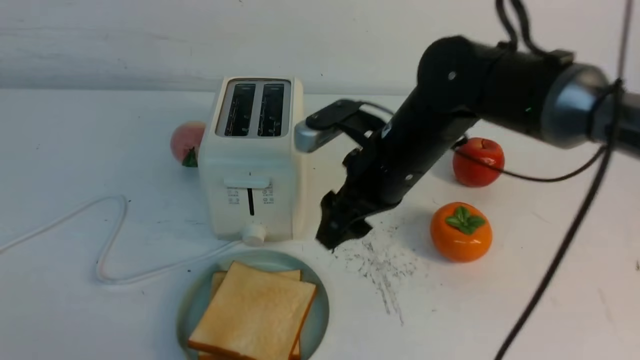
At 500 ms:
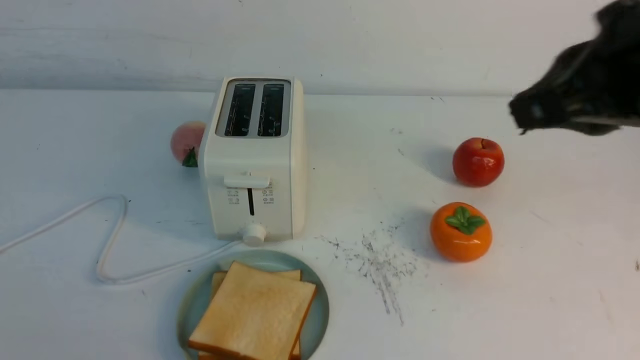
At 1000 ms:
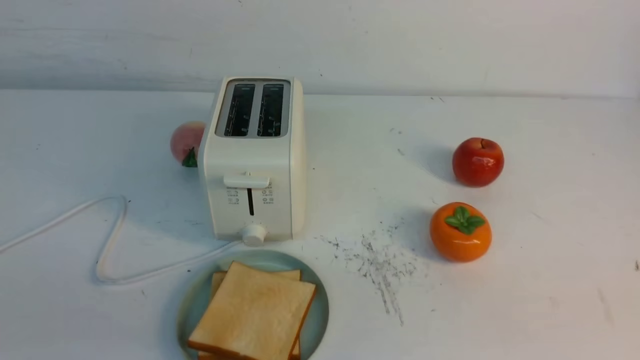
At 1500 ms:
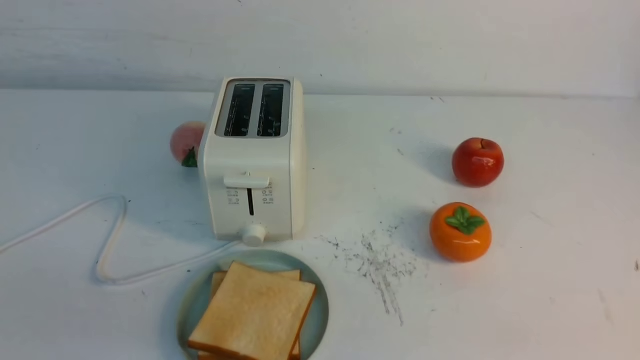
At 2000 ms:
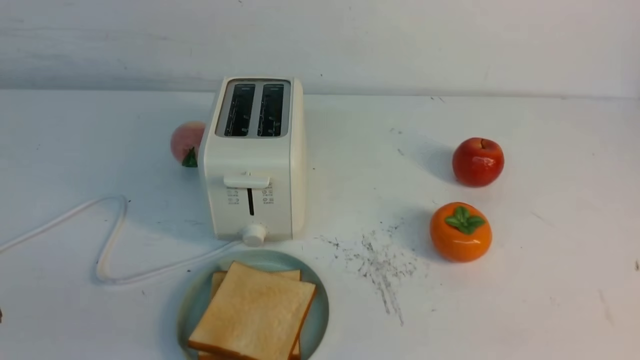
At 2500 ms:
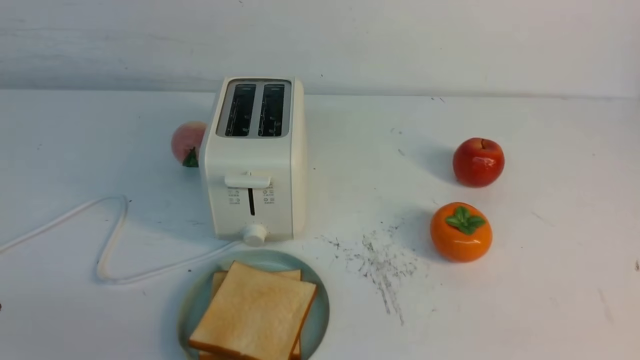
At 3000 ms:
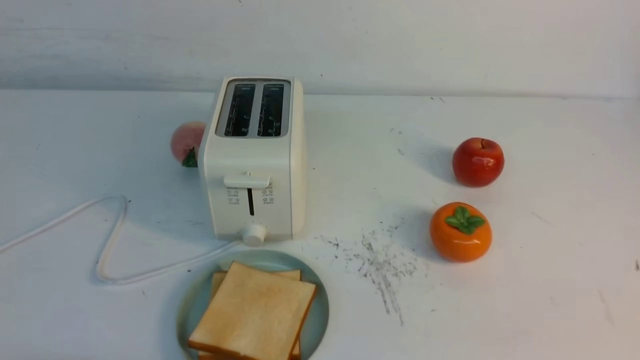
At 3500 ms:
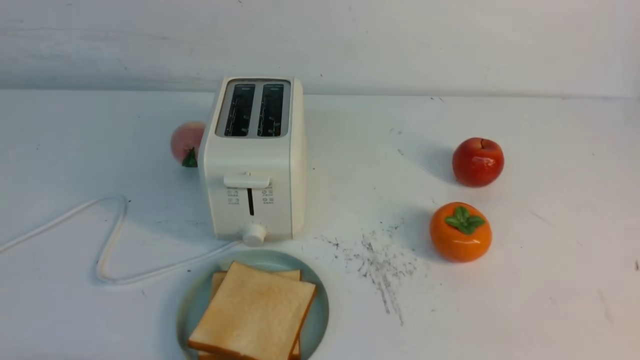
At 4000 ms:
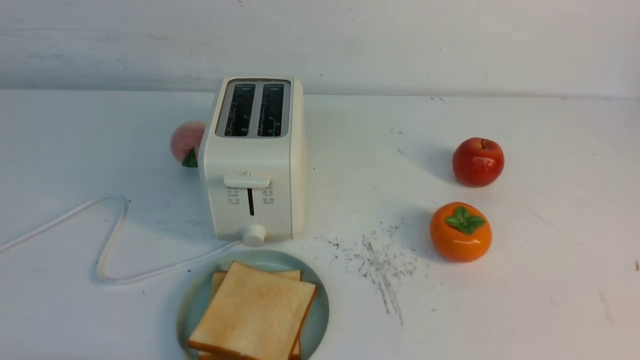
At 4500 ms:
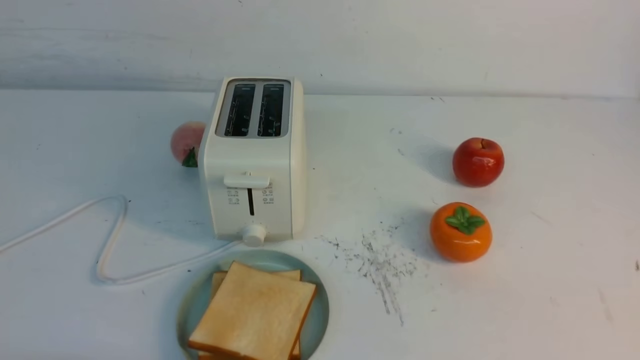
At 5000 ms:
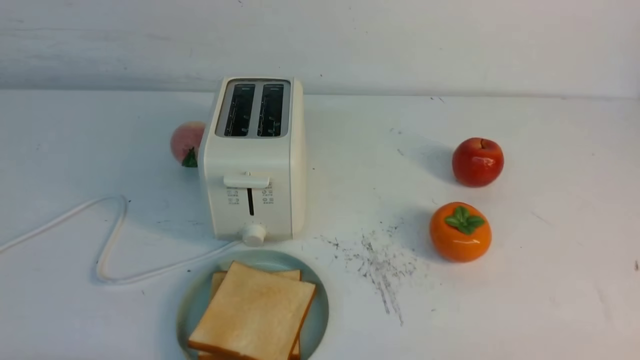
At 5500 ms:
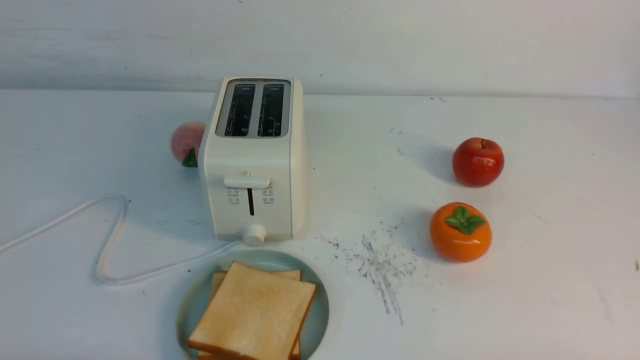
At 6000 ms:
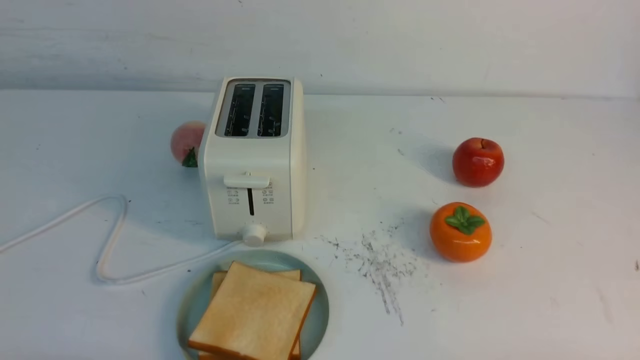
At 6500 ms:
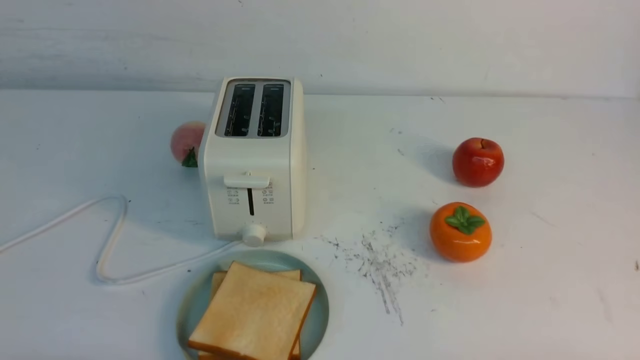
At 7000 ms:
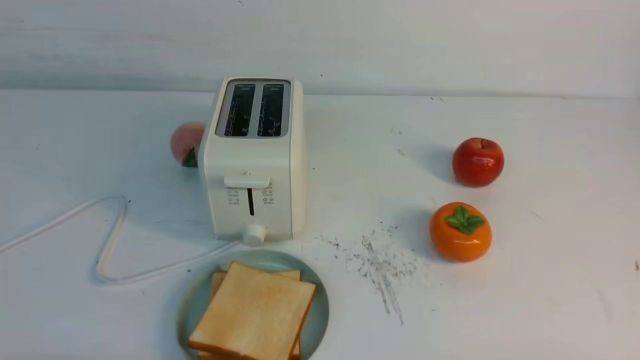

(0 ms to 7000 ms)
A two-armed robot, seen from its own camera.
Task of the whole recording: take toasted bread from bread machine on white table place on plate.
0 ms - 2000 ms: The right gripper travels backward and to the right by about 40 cm, and closes.

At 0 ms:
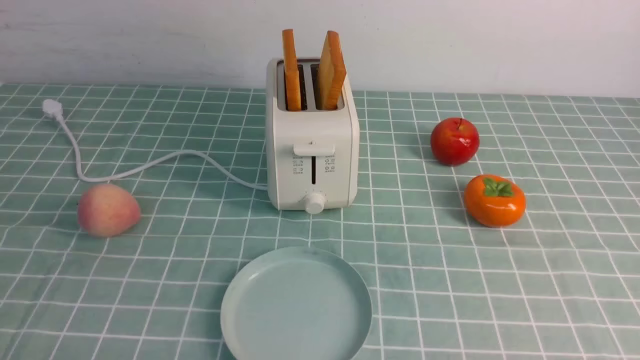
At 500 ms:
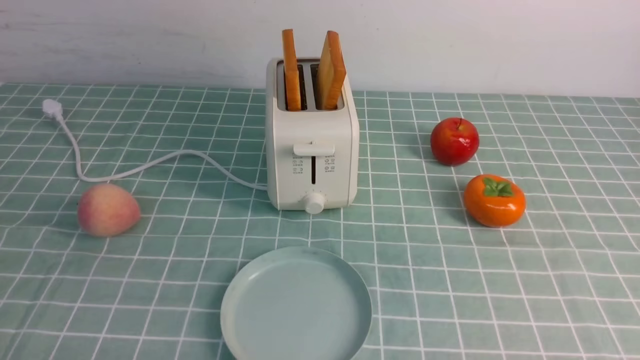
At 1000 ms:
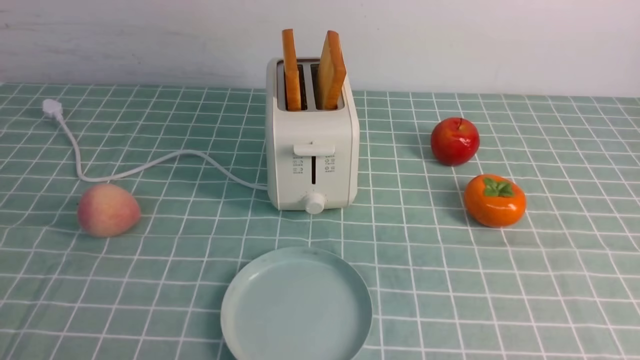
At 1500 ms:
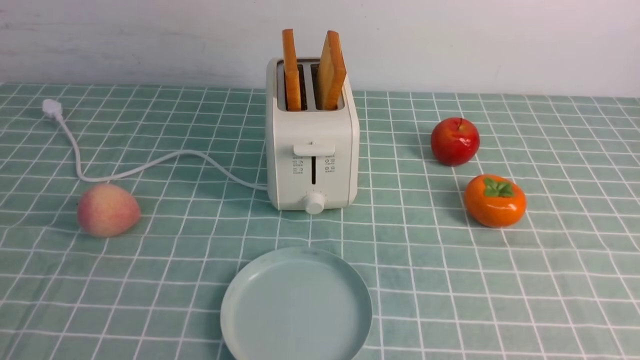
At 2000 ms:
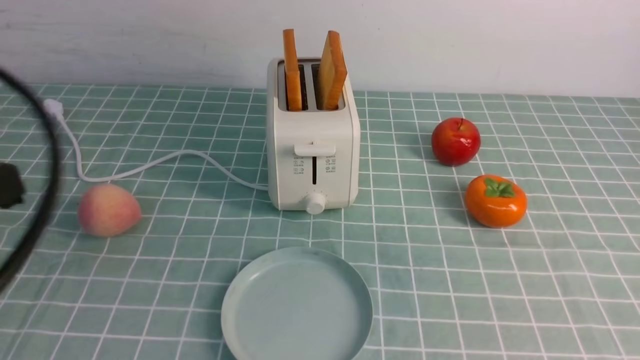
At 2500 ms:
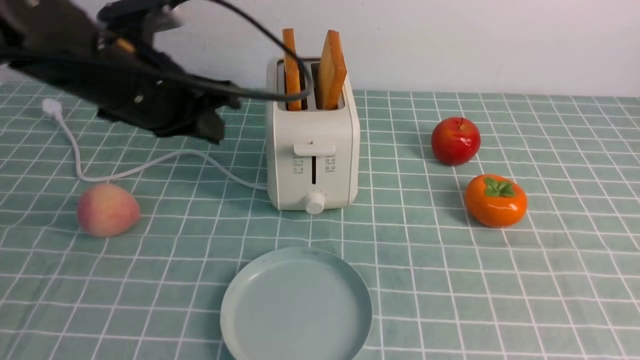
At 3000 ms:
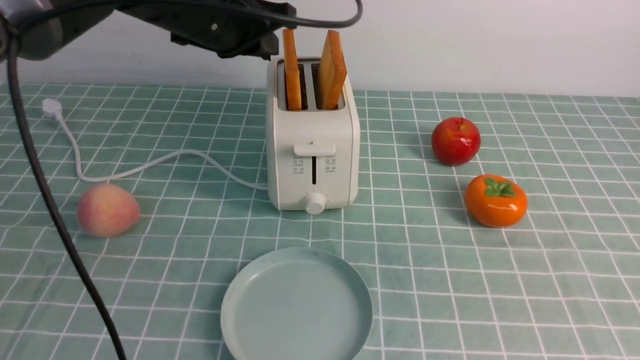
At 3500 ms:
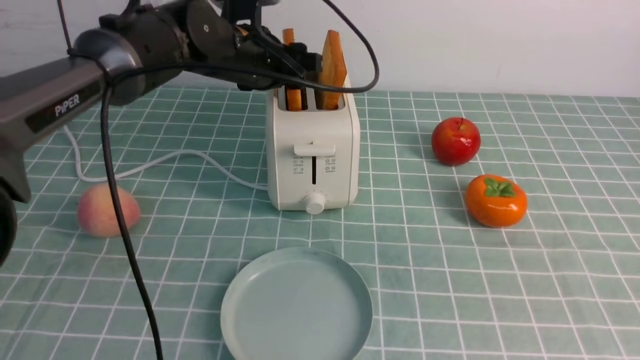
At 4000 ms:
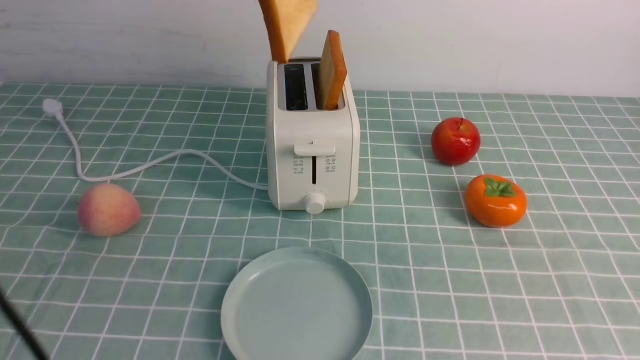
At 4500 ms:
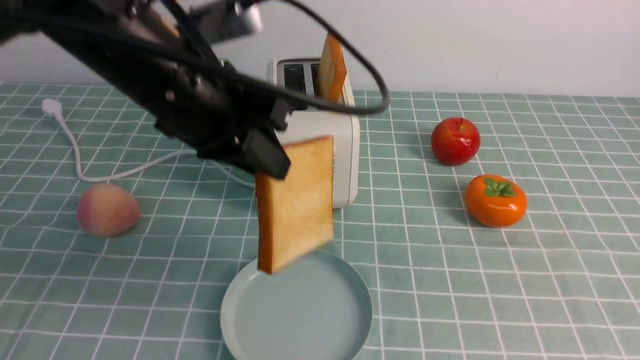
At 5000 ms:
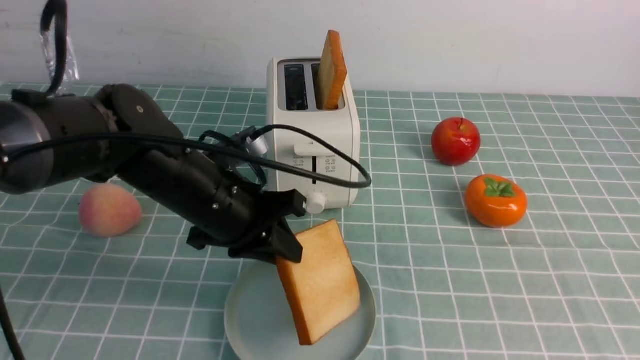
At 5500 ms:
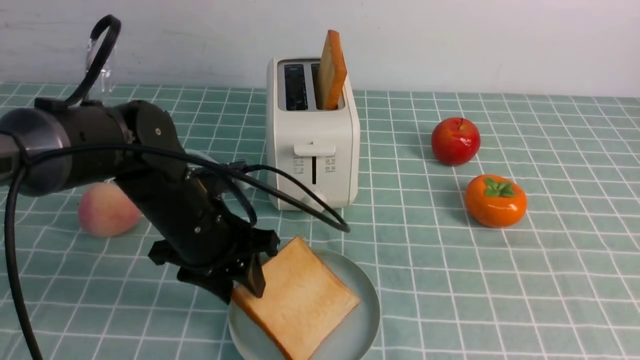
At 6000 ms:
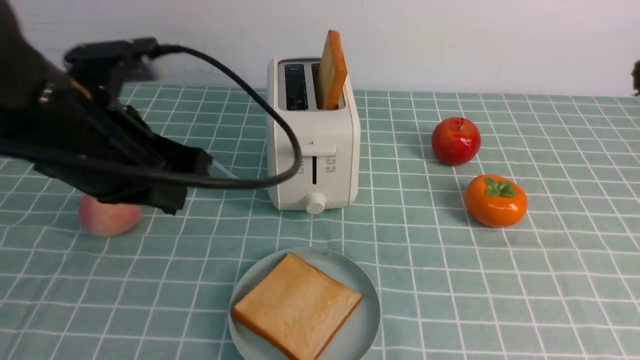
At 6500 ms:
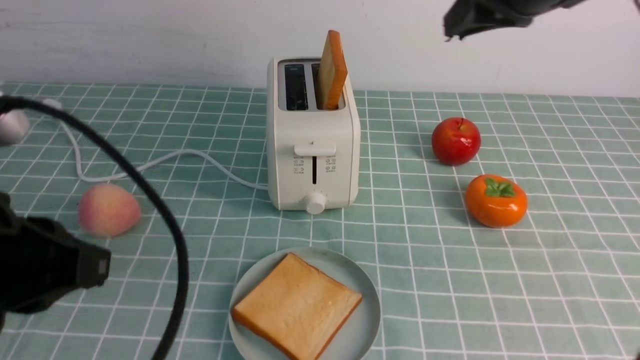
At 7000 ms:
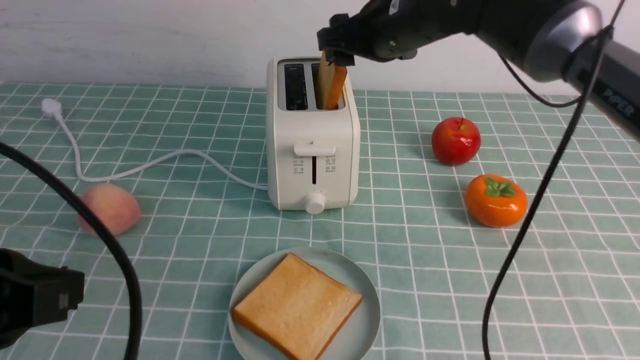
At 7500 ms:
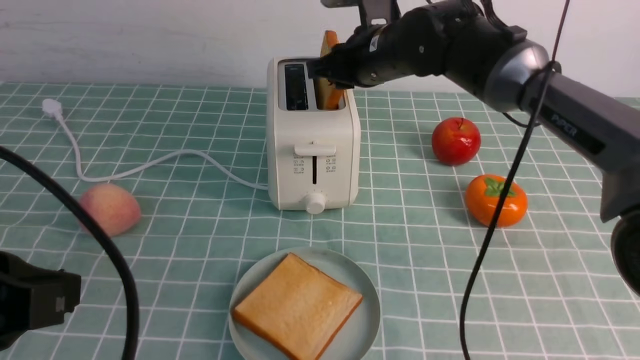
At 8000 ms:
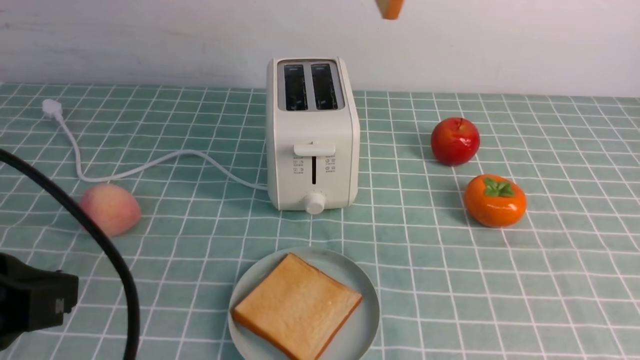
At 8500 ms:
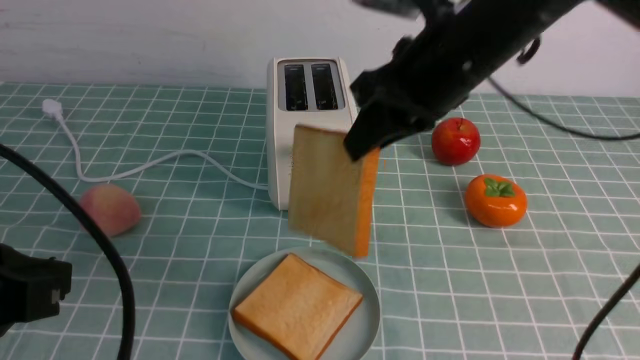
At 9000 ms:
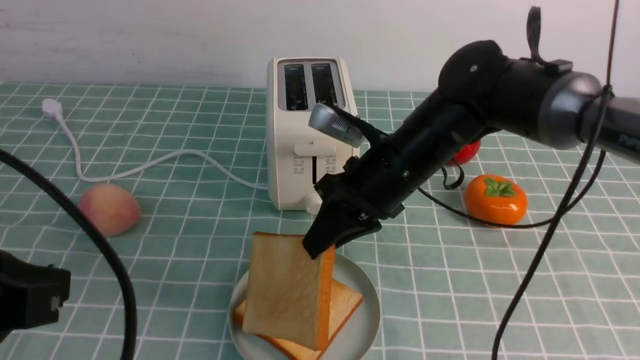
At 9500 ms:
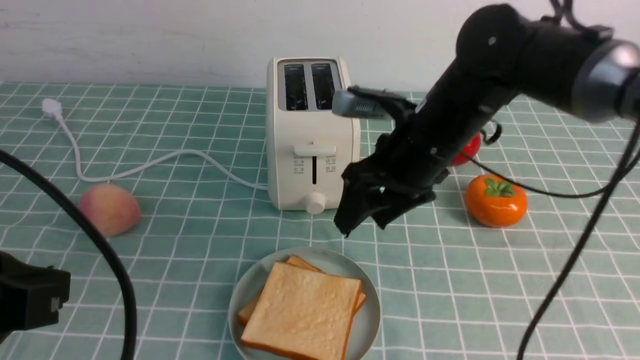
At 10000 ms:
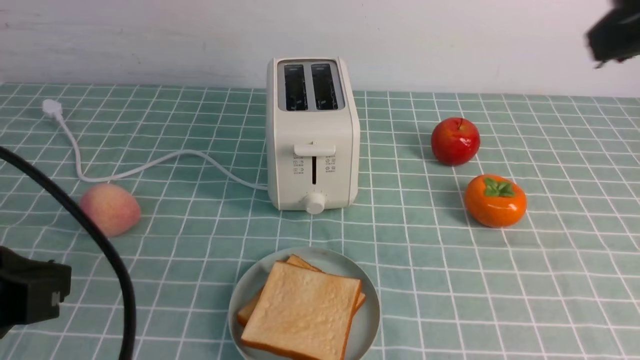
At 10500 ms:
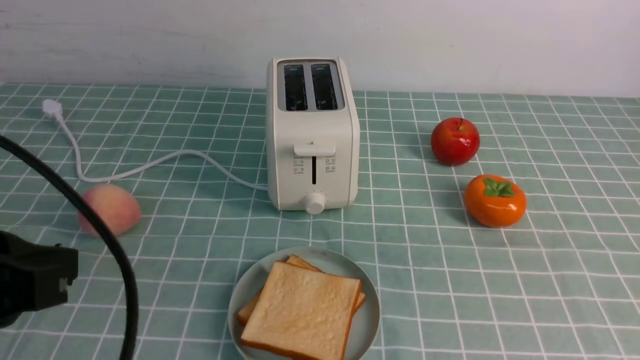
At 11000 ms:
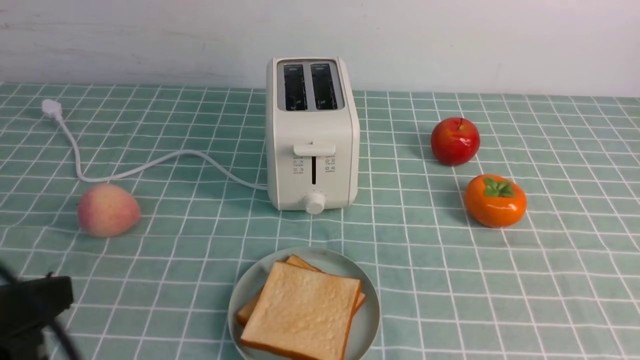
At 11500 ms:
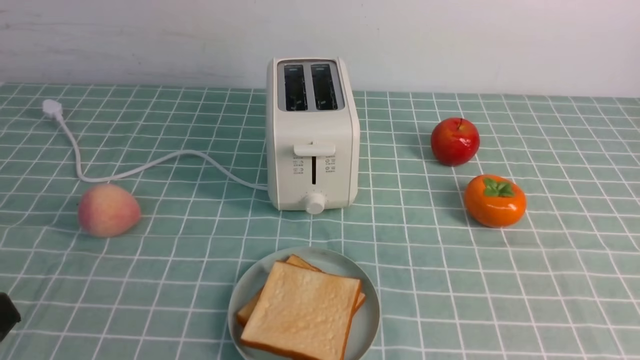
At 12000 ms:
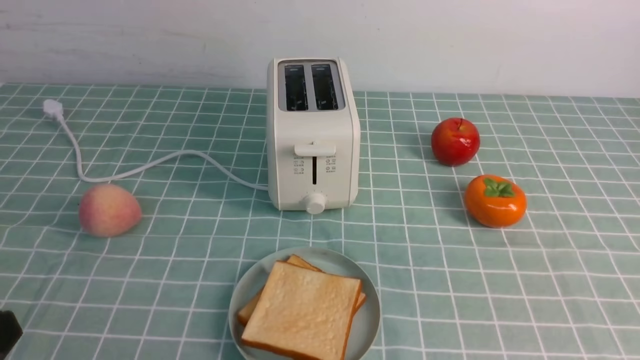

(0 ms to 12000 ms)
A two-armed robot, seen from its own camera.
Task of the whole recording: take toasted bread from bread machine on blue coffee table place on plate.
Step, 0 ms - 4000 ms: use the left arm to take out a slice of bread.
Step, 4500 ms - 5500 ms: use the left arm to put a slice of bread into the empty plate.
Step, 6000 ms - 7500 ms: use the right arm to take out a slice of bread.
Step, 8000 ms - 9000 ms: use the right arm to put a slice of bread into the plate.
0 ms - 2000 ms: The left gripper goes some 25 cm upward and forward, and closes up.
2000 ms - 4000 ms: The right gripper travels upward by some 5 cm. Meanwhile the left gripper is displaced forward and to the right by approximately 25 cm, and opens, then closes again.
4000 ms - 6000 ms: The left gripper goes about 15 cm backward and downward, and opens, then closes again; the right gripper moves forward and upward, about 15 cm.
6000 ms - 8000 ms: The left gripper shifts approximately 15 cm backward. The right gripper is displaced forward and to the left by roughly 20 cm, and opens, then closes once more.
8000 ms - 10000 ms: The right gripper heads backward and to the right, covering some 20 cm, moves some 20 cm downward and comes back, and opens, then closes again.
10000 ms - 12000 ms: The left gripper heads downward and backward, covering about 10 cm, while the right gripper travels downward and backward by some 20 cm.

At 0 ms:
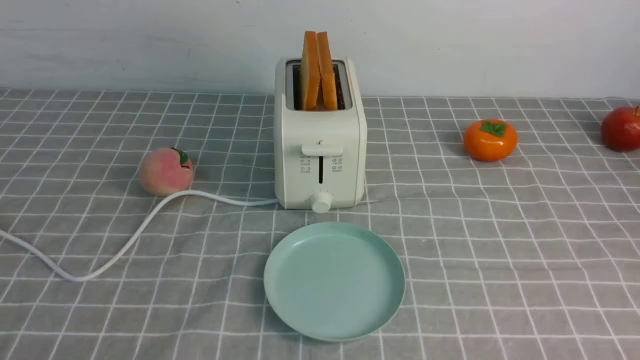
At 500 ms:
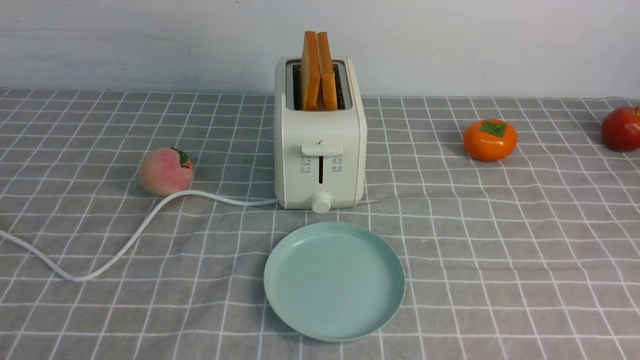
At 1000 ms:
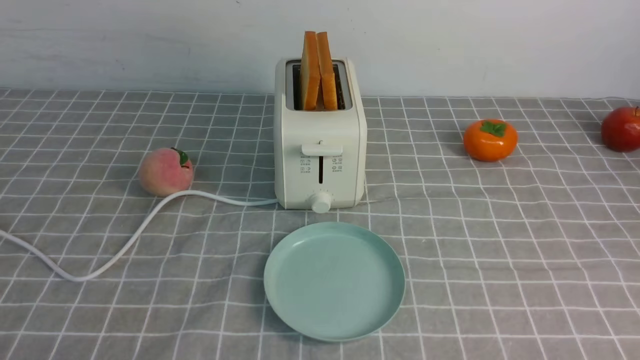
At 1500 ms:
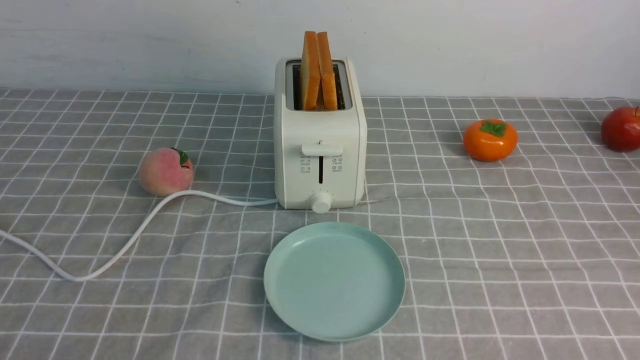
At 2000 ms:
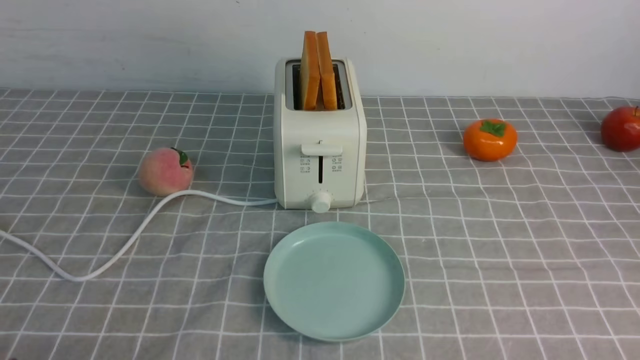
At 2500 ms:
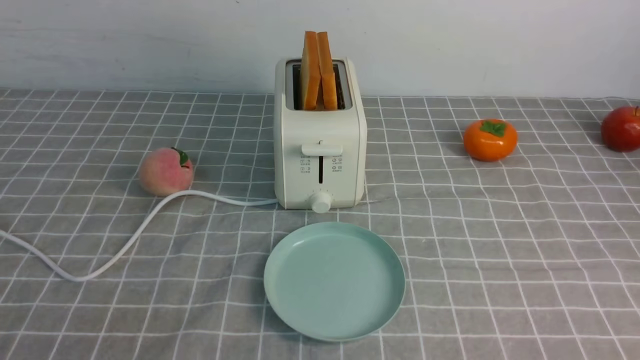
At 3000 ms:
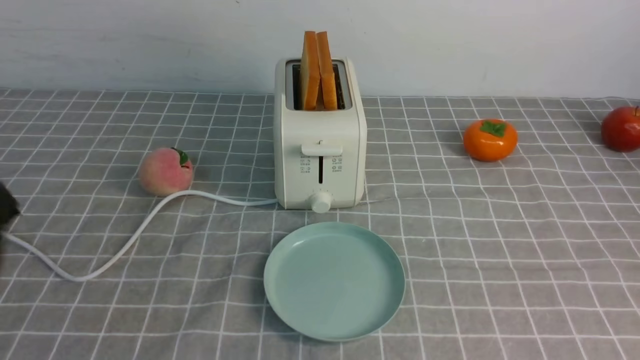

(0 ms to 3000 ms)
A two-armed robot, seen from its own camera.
Task of the whole recording: take toasted bread from bread machine on grey coffee table place on plate.
0 ms - 1500 ms: Both grippers stay about where they are.
